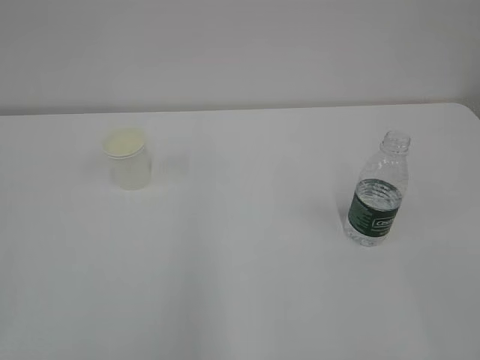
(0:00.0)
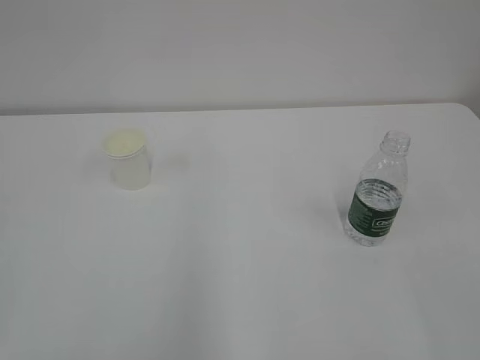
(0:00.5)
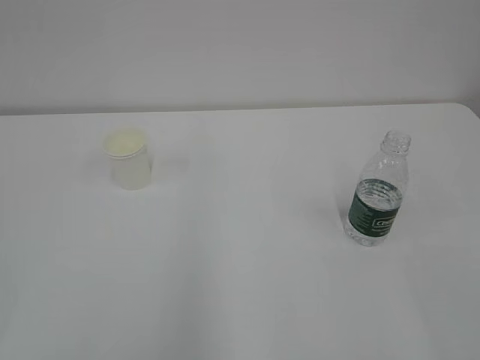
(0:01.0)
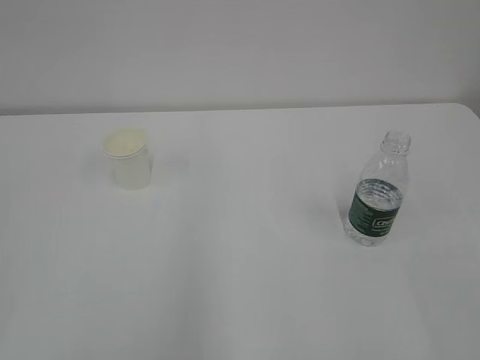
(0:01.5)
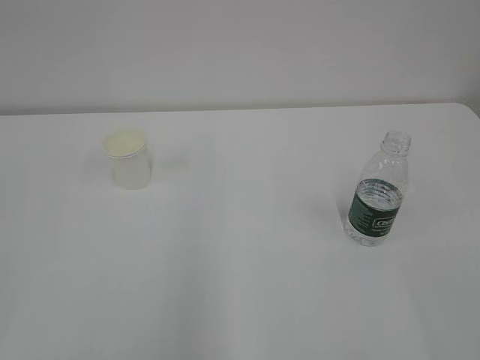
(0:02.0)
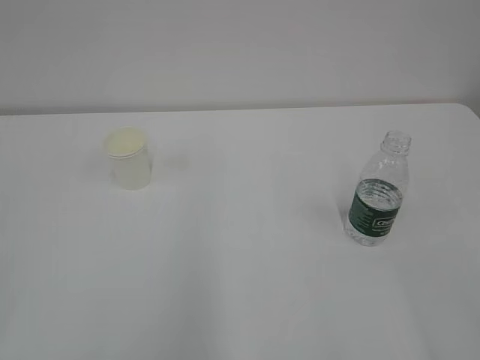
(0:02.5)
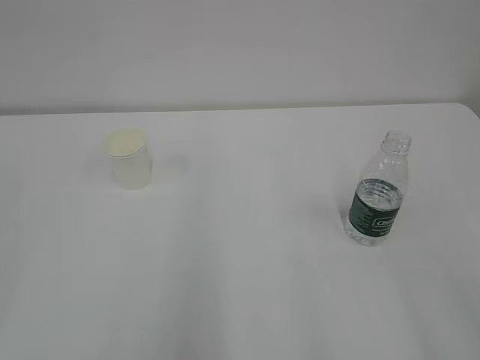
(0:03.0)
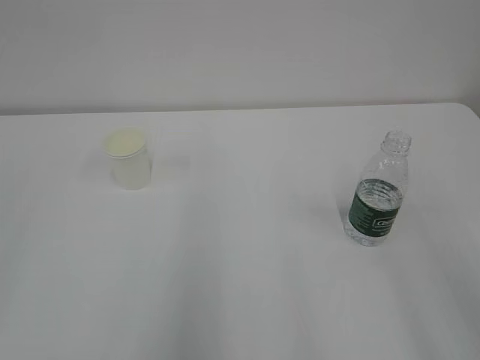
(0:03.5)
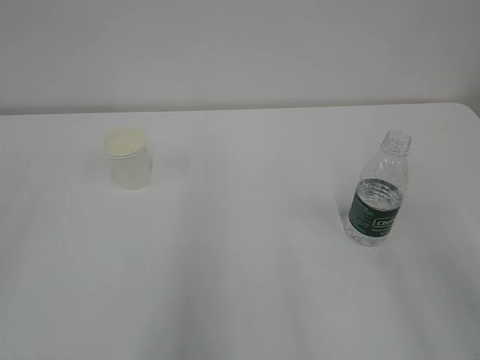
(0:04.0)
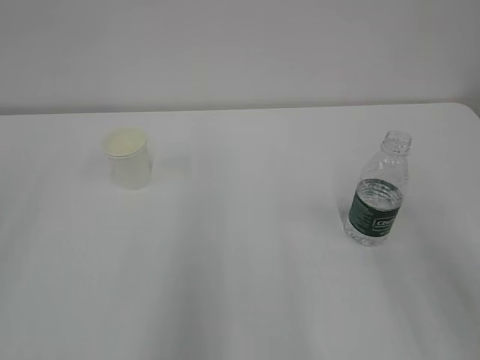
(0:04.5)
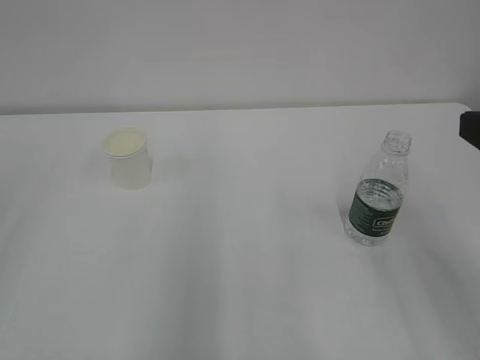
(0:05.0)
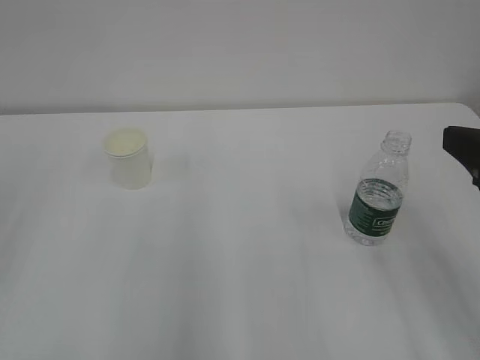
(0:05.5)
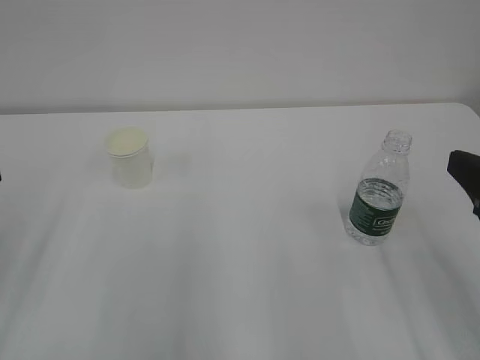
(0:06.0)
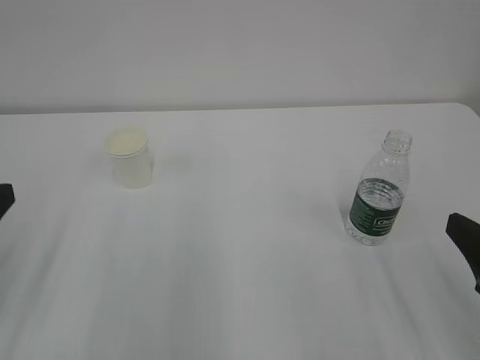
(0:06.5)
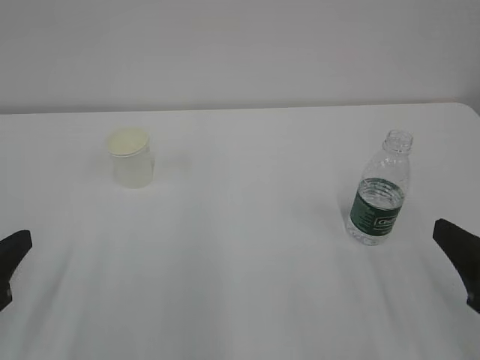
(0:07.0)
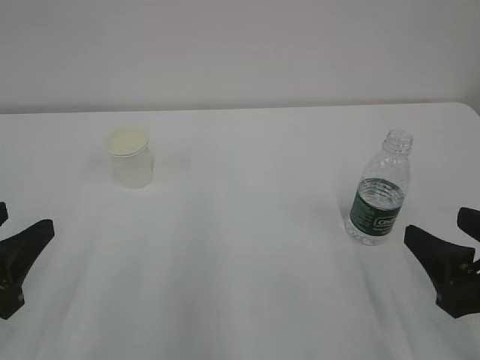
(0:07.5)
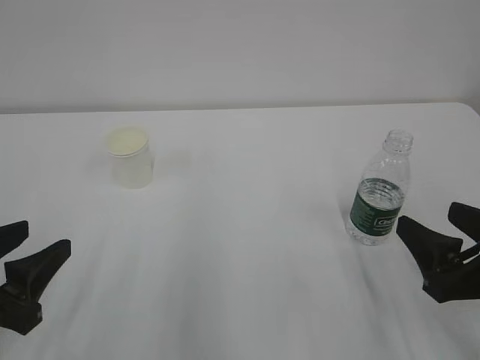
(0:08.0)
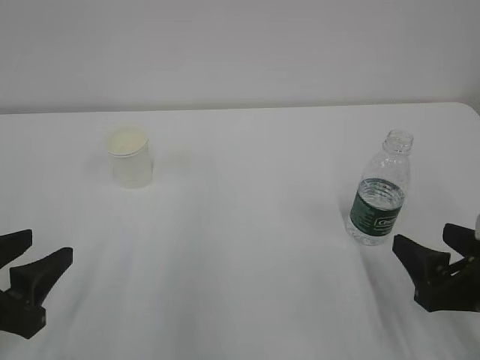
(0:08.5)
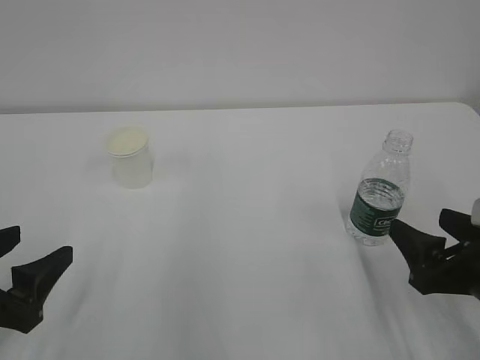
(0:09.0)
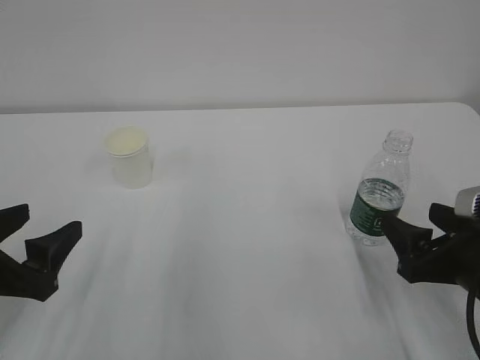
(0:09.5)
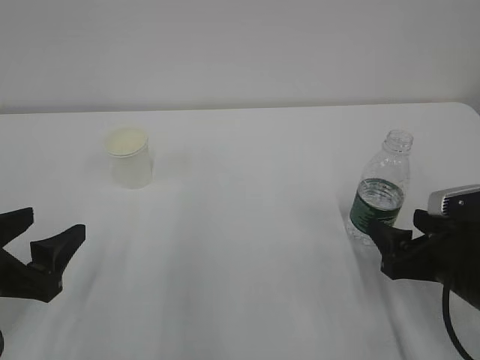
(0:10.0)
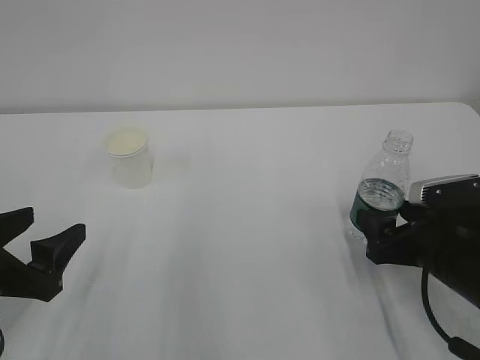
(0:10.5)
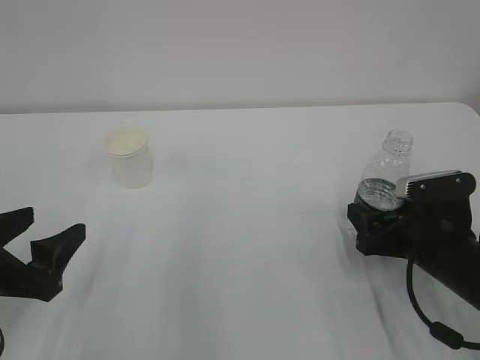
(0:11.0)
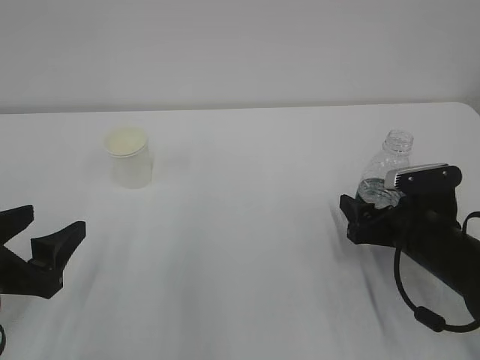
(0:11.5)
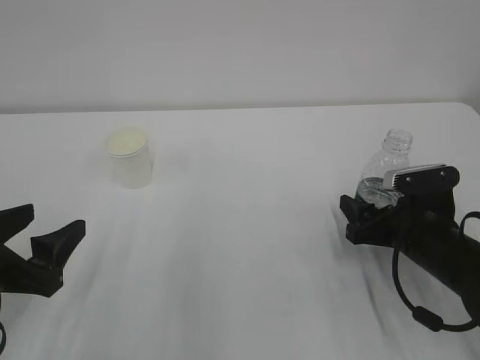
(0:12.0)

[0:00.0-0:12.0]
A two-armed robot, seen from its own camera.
0:04.0 to 0:06.0: The right gripper travels downward and forward by approximately 10 cm.
0:06.0 to 0:08.0: Both grippers move downward, approximately 10 cm.
0:08.0 to 0:10.0: The right gripper heads forward, covering roughly 5 cm. The left gripper opens its fingers.
0:10.0 to 0:12.0: The right gripper is displaced forward by roughly 5 cm.

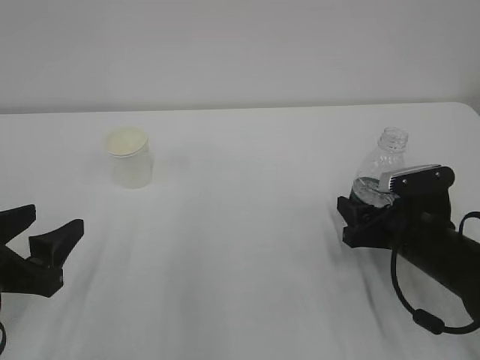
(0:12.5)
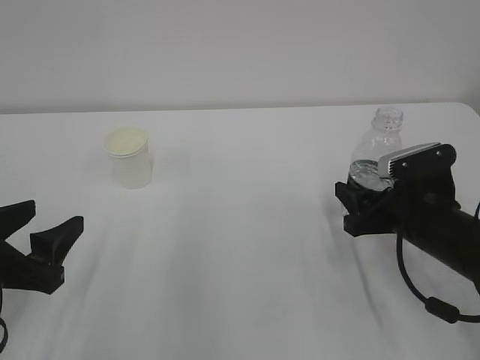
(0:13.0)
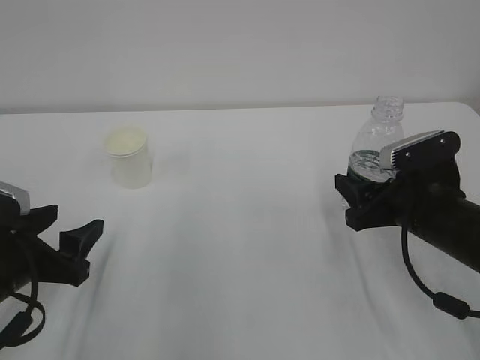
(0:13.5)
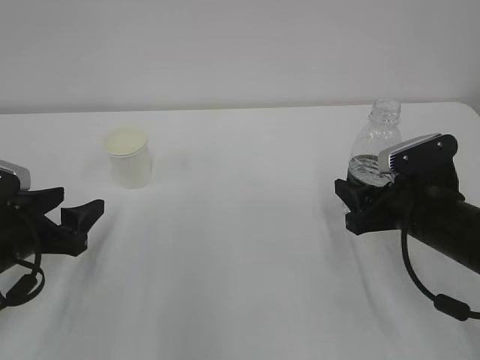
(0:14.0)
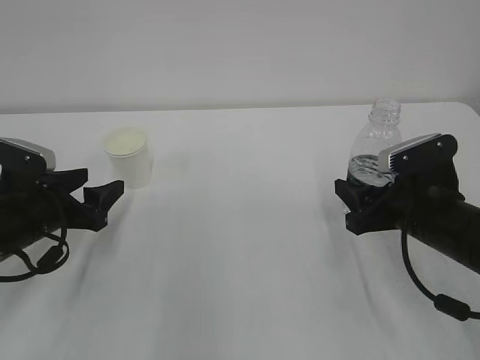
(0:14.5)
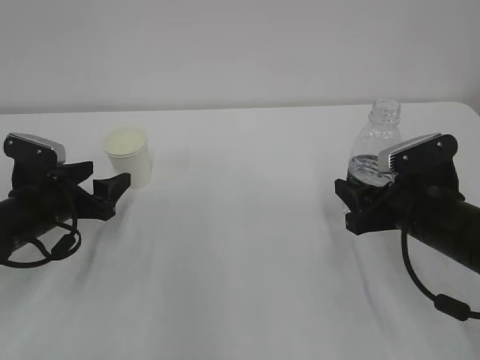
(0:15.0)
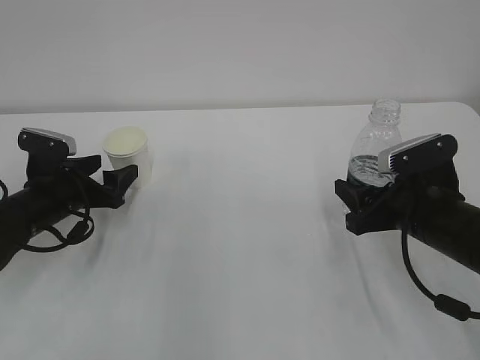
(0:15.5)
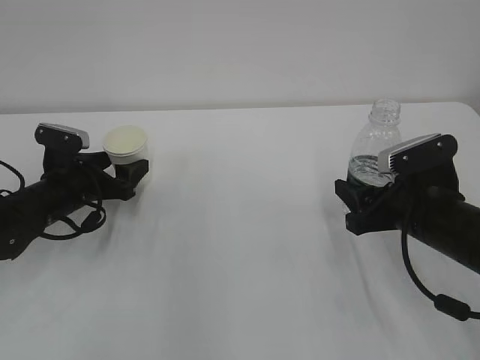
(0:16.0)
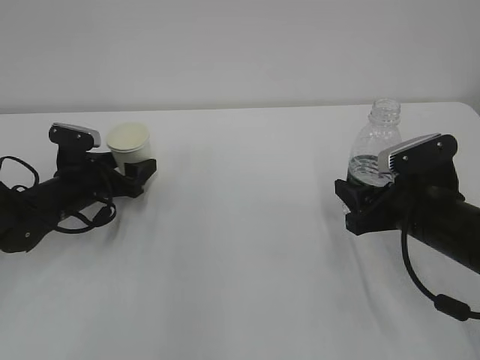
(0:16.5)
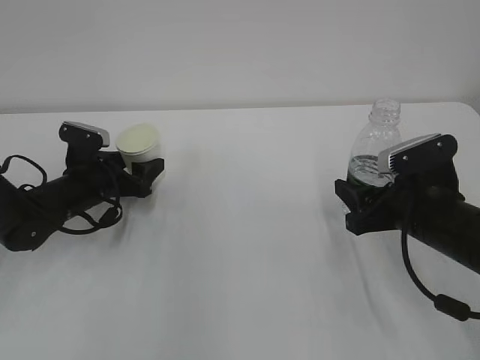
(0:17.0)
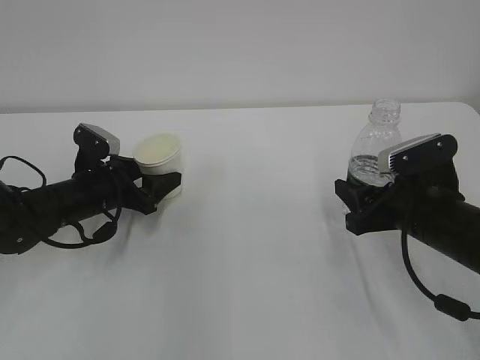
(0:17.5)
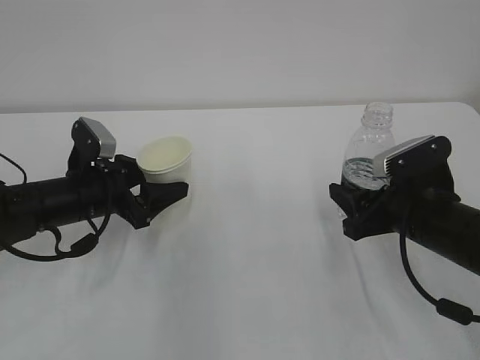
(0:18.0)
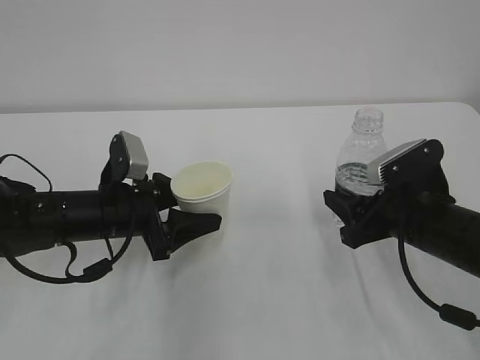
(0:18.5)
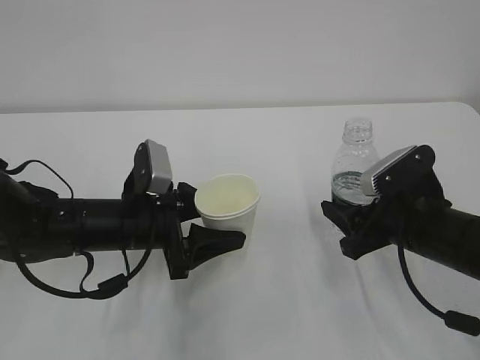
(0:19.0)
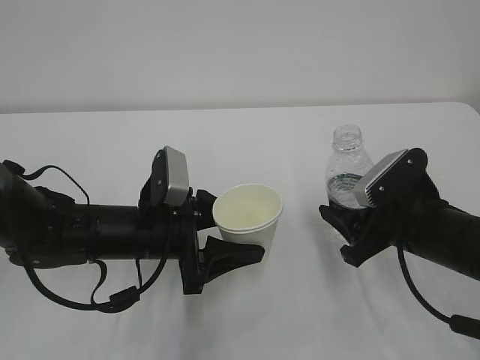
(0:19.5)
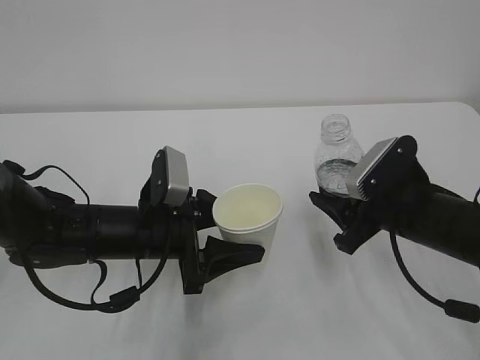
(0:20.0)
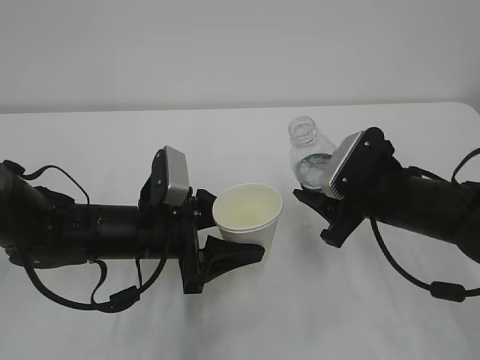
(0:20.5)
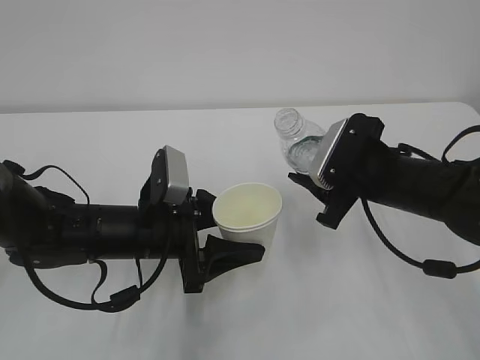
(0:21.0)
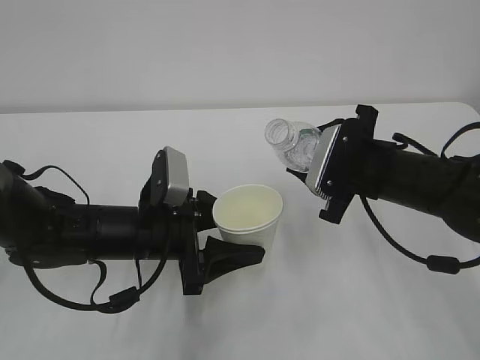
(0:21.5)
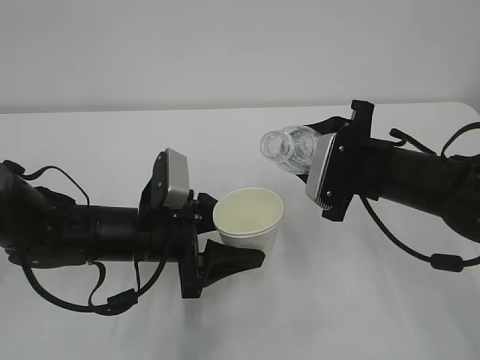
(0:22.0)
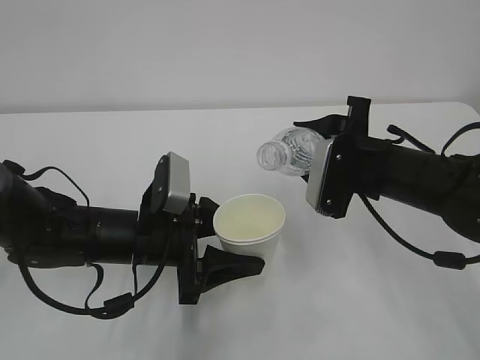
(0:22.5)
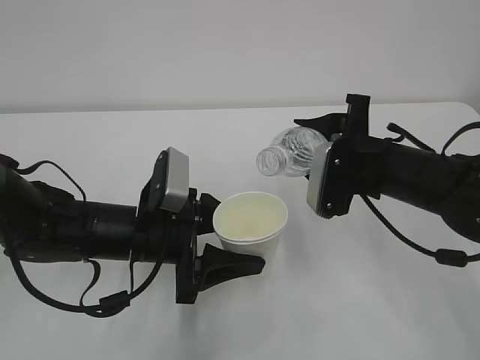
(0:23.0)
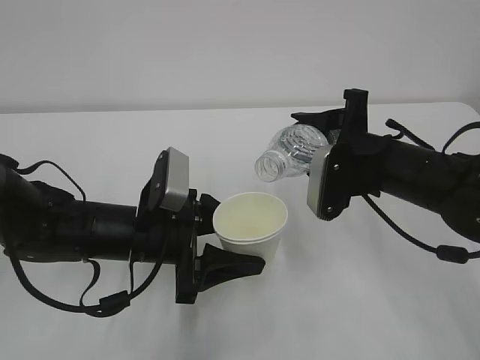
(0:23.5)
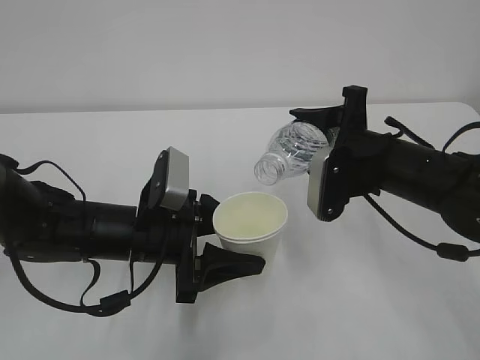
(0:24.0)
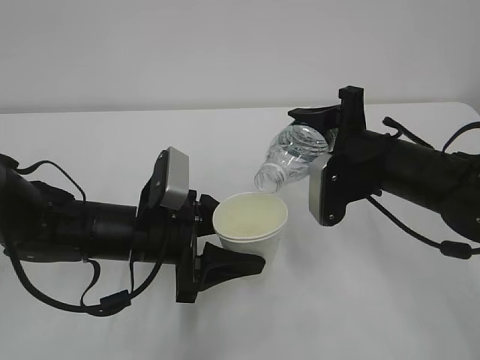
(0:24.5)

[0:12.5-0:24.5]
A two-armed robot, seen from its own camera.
0:12.5 to 0:14.5: The left gripper is displaced forward by about 10 cm.
0:14.5 to 0:16.5: The left gripper moves forward, some 10 cm, and opens.
0:16.5 to 0:18.5: The left gripper is displaced backward and to the right by approximately 10 cm, and closes up.
0:18.5 to 0:20.5: The left gripper moves to the right, roughly 5 cm.

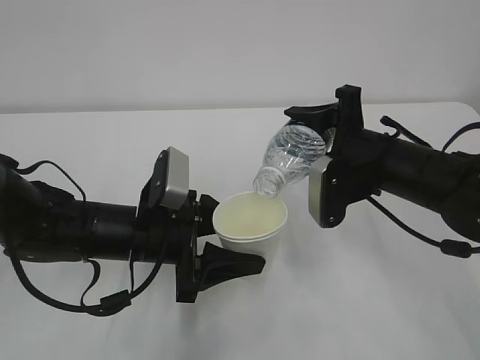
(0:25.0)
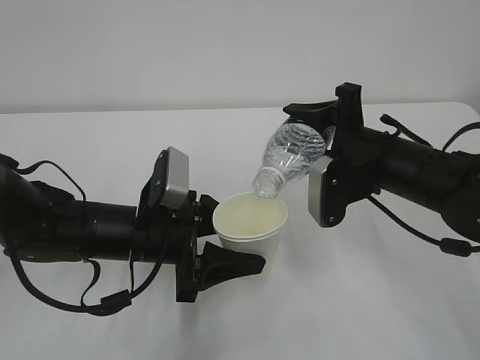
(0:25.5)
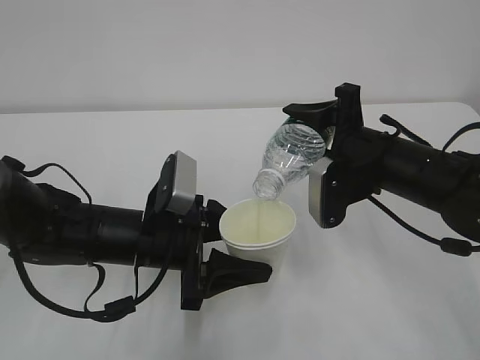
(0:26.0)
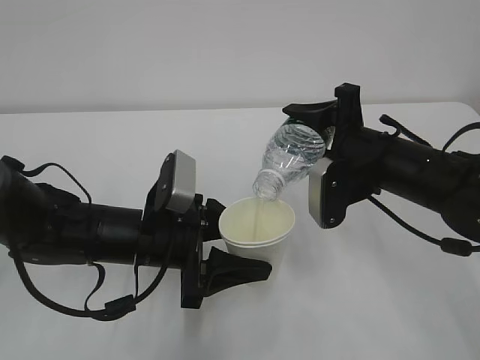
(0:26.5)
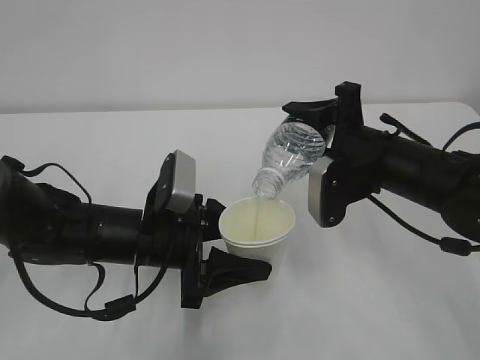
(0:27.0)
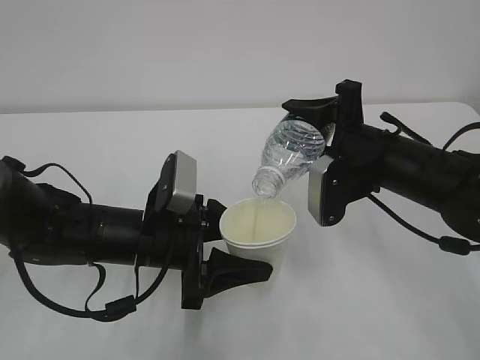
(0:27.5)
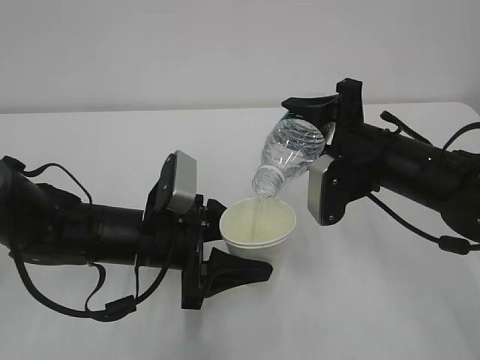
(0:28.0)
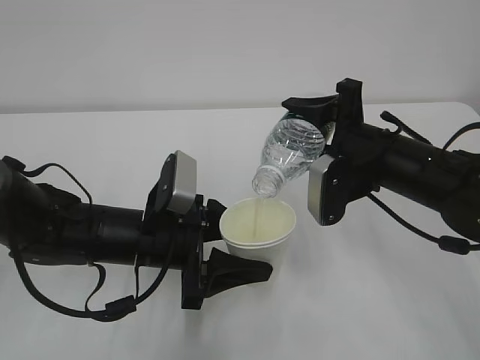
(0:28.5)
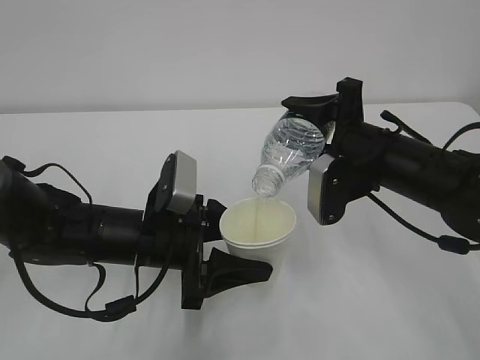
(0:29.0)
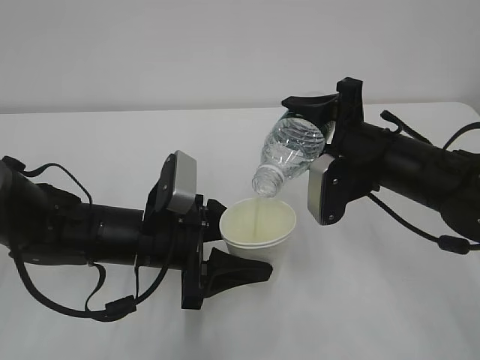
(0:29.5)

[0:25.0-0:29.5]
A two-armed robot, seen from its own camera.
0:25.0 to 0:27.0: The two grippers keep their place.
0:27.0 to 0:29.5: Both grippers stay put.
